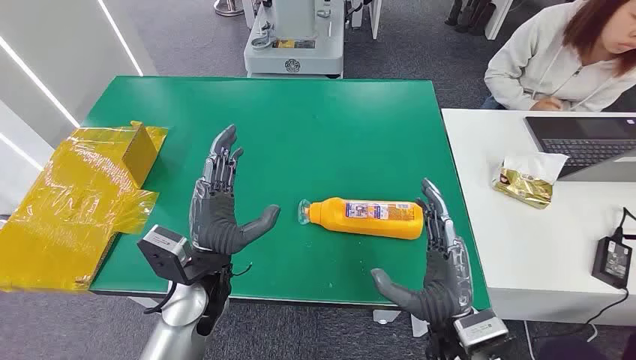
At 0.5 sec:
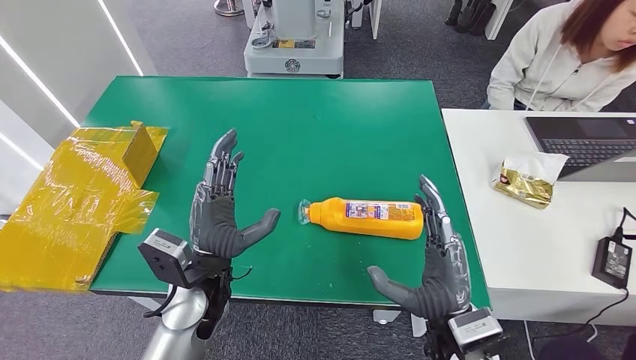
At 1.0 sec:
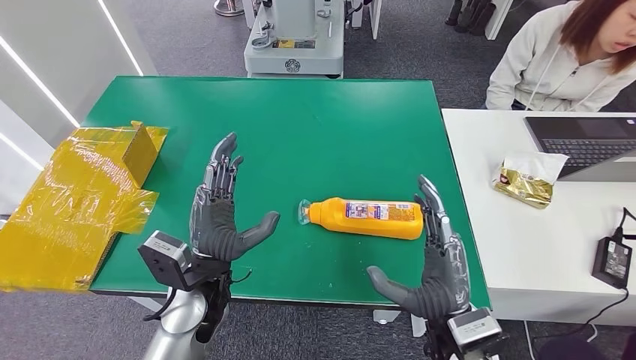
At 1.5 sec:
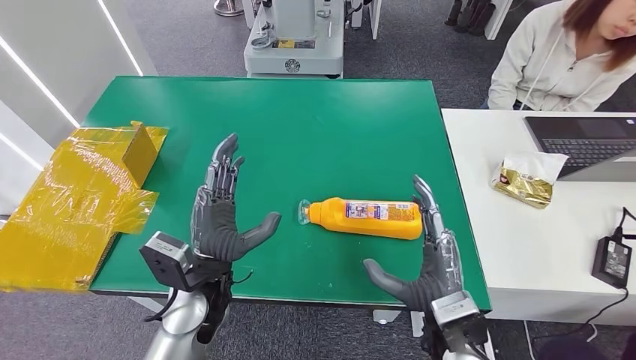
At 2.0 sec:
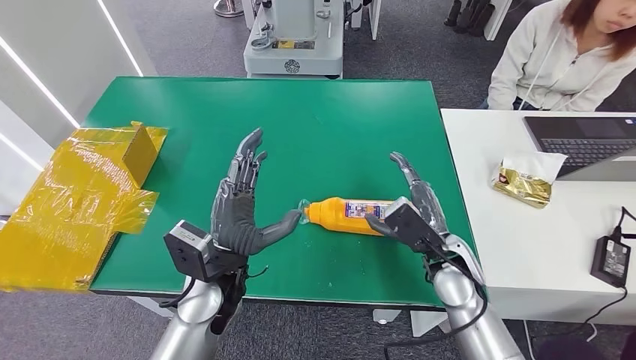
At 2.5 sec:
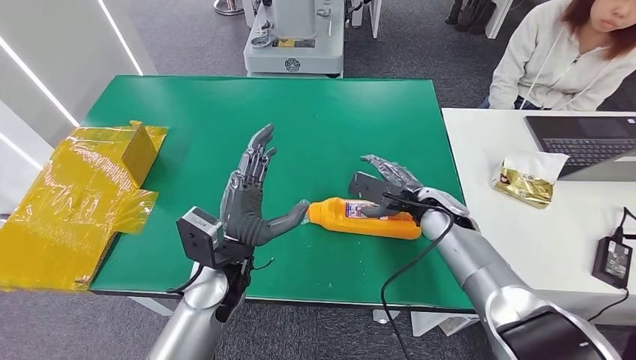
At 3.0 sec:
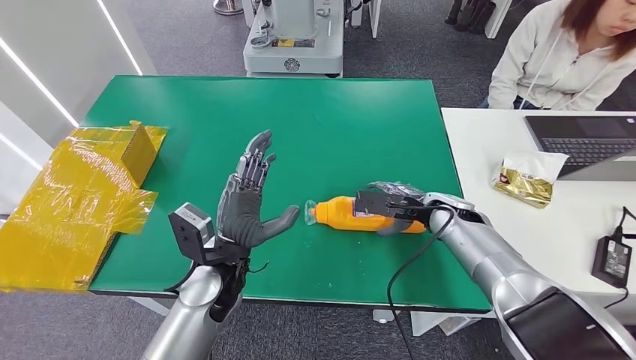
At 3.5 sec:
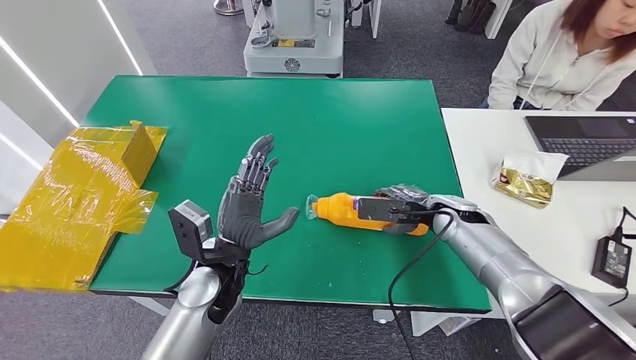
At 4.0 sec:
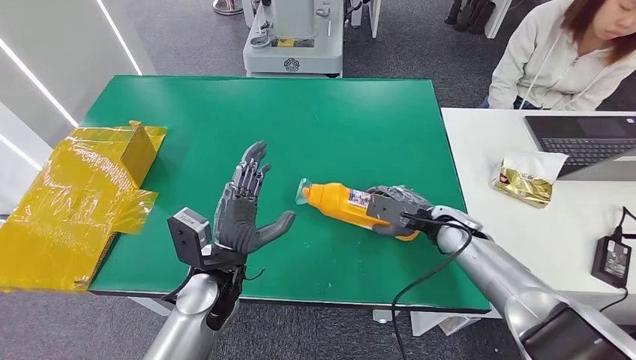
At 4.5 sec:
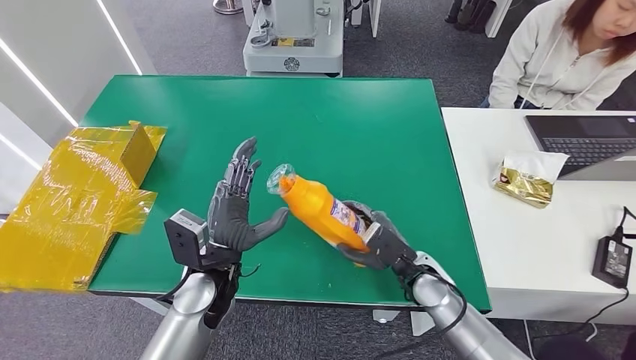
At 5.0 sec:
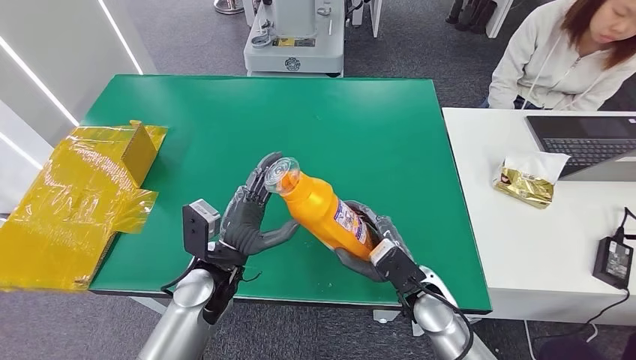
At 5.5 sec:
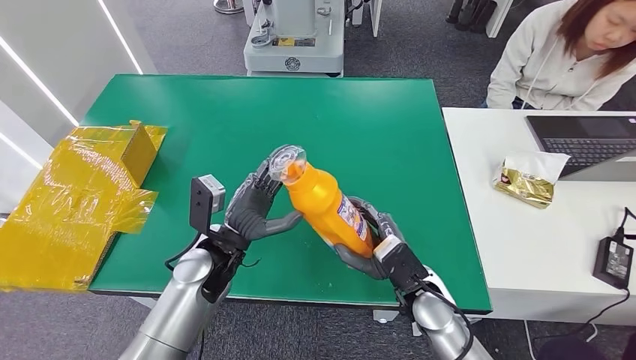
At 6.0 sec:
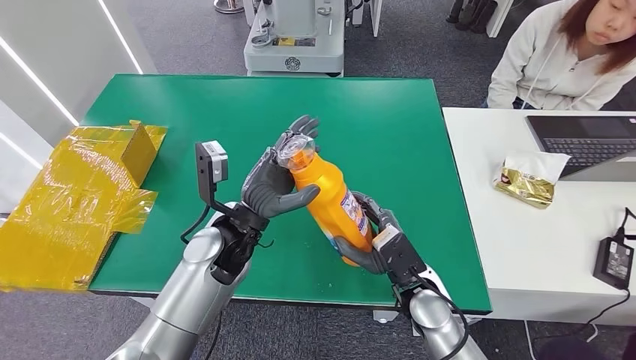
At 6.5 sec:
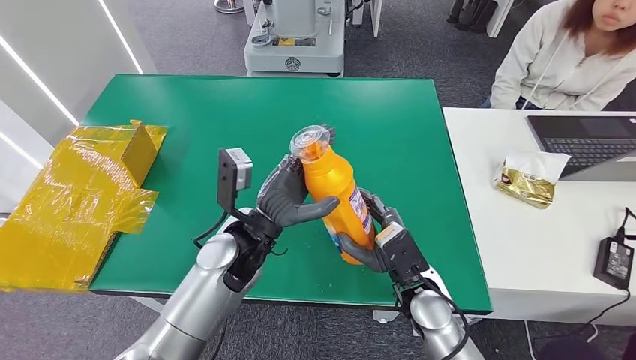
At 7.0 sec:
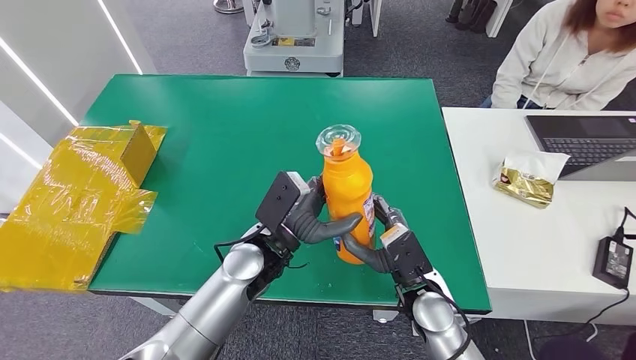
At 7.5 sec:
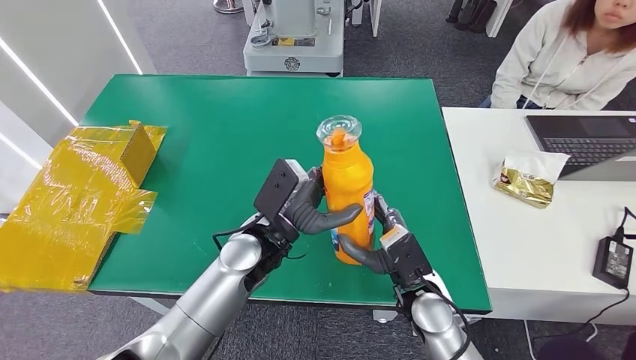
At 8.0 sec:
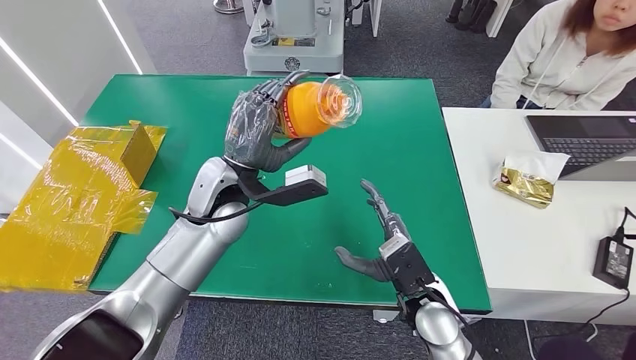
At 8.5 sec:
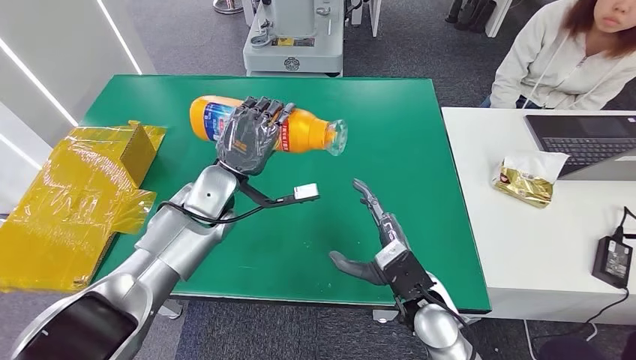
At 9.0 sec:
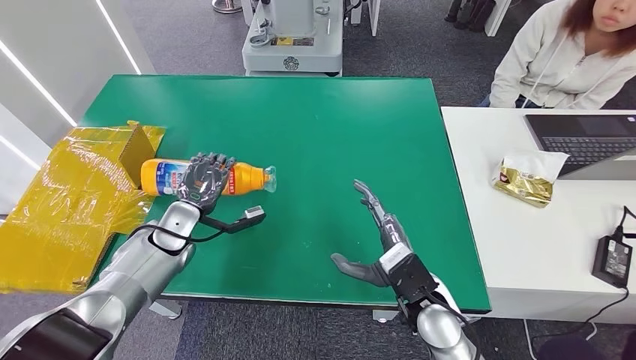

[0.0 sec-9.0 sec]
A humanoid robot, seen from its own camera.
Step, 0.0 sec to 5.0 sec: Pick up the bottle from the table.
2.0 sec to 4.5 sec: The right hand shifts roughly 5 cm downward, and goes forward and returns, roughly 10 cm each way.
4.5 sec to 7.0 sec: The right hand shifts by approximately 5 cm, while the left hand shifts roughly 5 cm to the right.
7.0 sec to 9.0 sec: The left hand goes some 20 cm to the left.

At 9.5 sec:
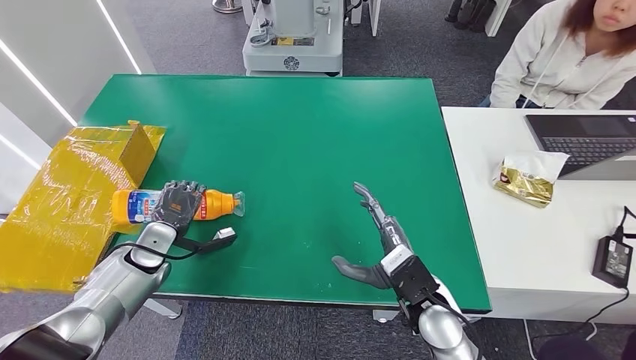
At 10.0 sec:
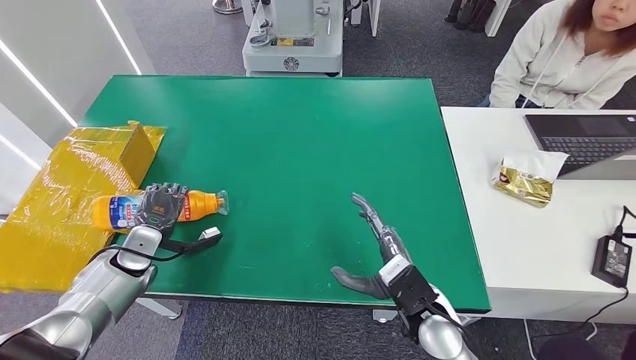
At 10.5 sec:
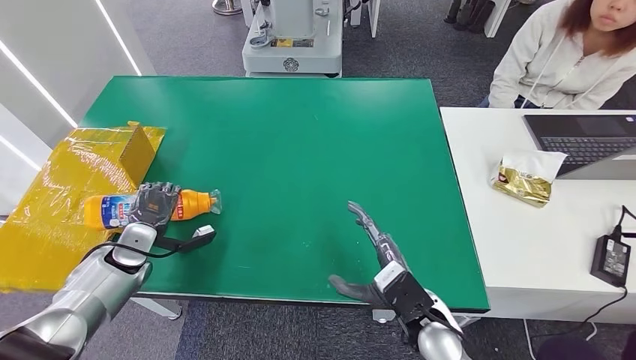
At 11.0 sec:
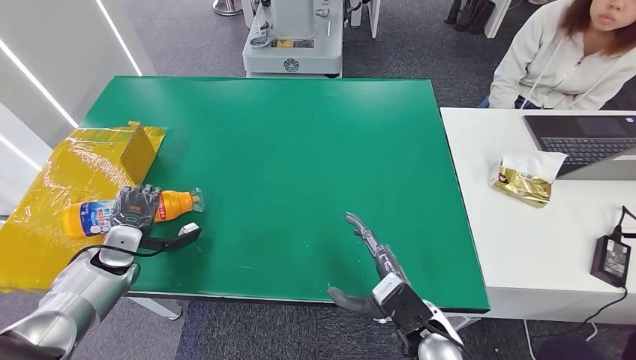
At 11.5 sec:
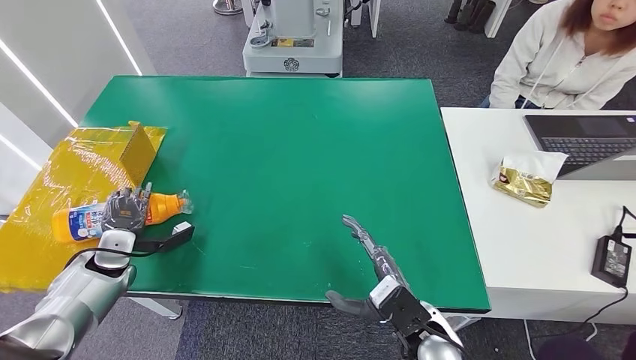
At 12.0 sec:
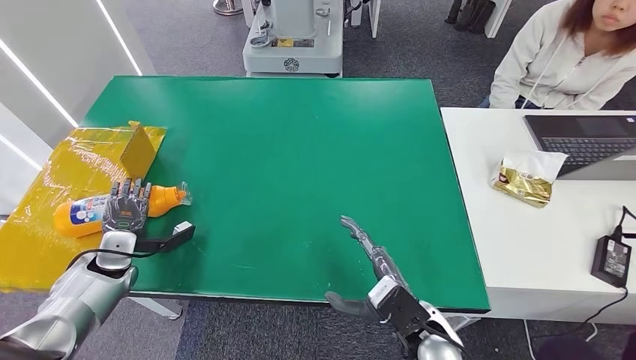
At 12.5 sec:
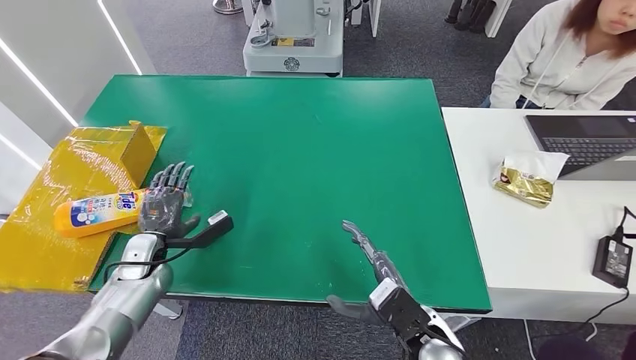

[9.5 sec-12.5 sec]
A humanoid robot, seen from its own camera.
Step, 9.5 sec to 12.5 sec: Turn the bottle to the front side.
9.5 sec to 11.0 sec: The left hand is displaced to the left by about 5 cm.
11.0 sec to 12.5 sec: The left hand goes roughly 10 cm to the right.
